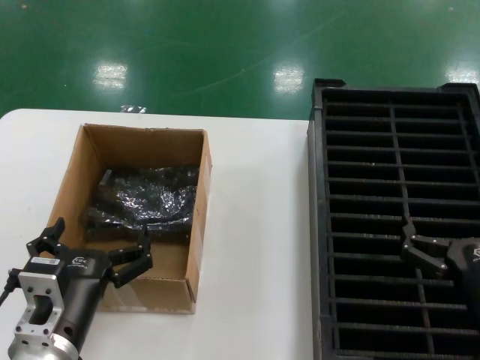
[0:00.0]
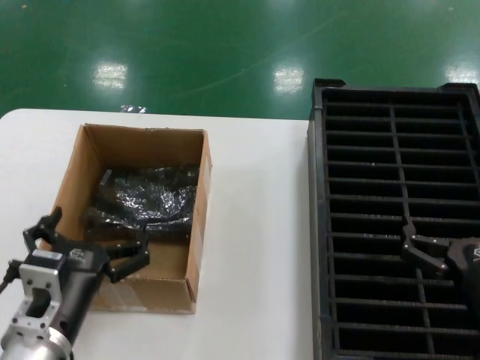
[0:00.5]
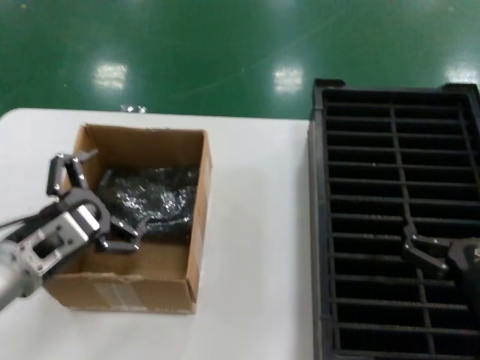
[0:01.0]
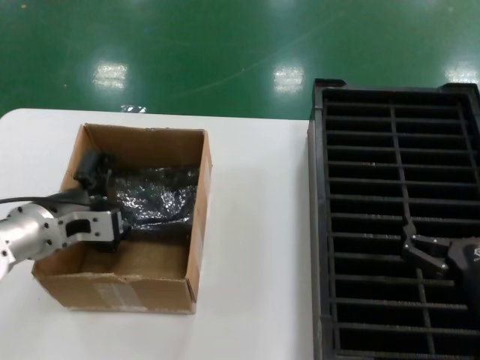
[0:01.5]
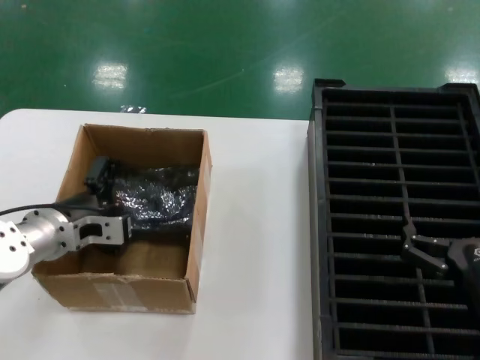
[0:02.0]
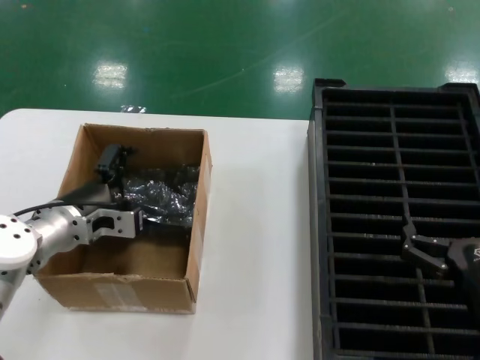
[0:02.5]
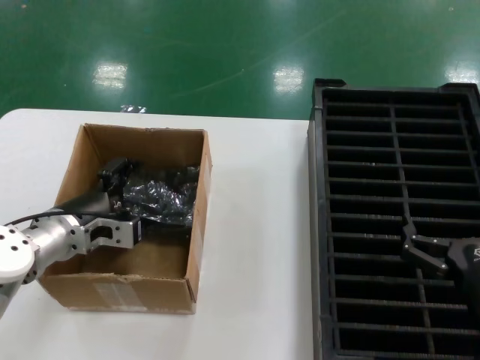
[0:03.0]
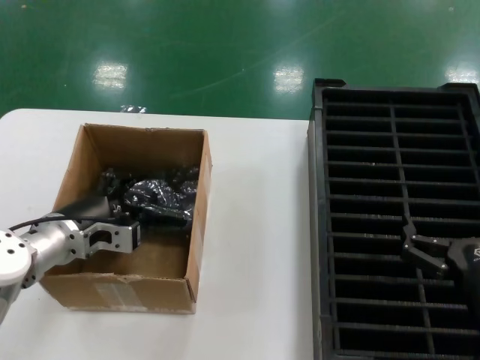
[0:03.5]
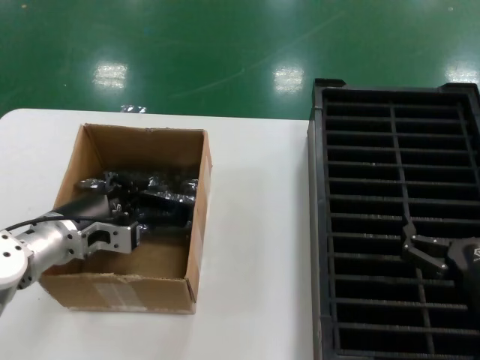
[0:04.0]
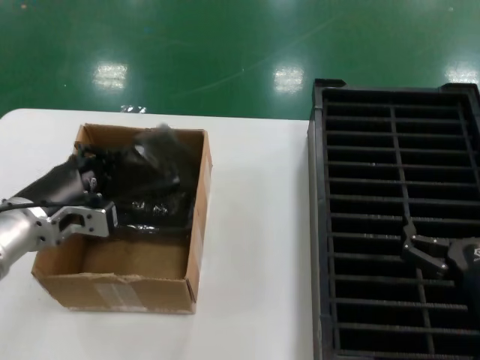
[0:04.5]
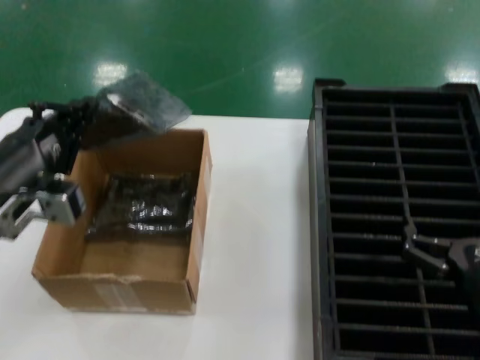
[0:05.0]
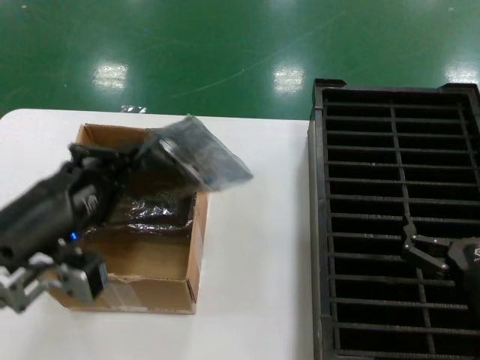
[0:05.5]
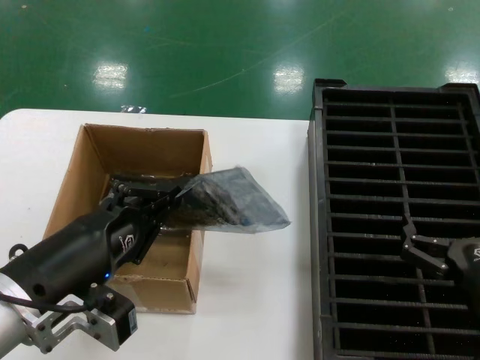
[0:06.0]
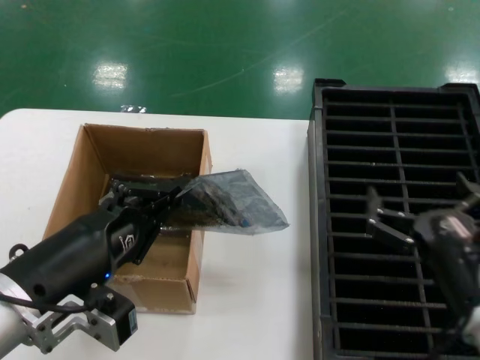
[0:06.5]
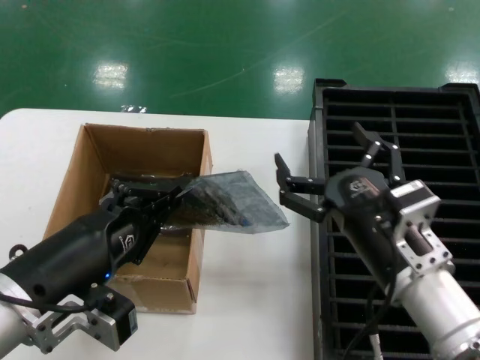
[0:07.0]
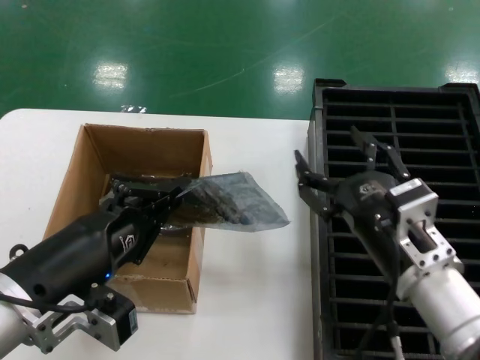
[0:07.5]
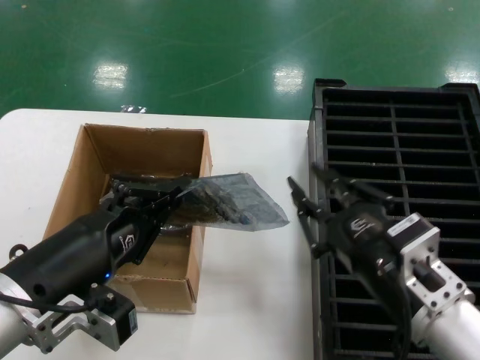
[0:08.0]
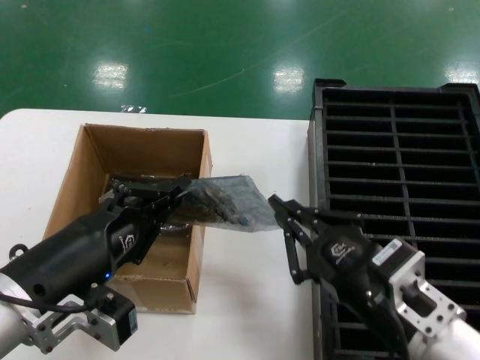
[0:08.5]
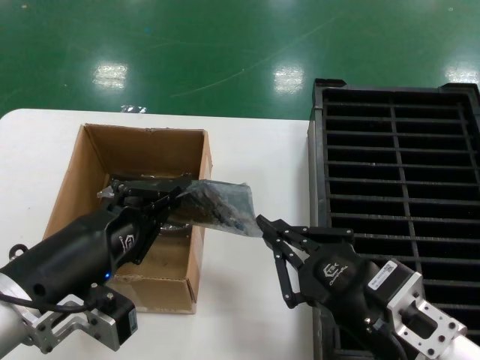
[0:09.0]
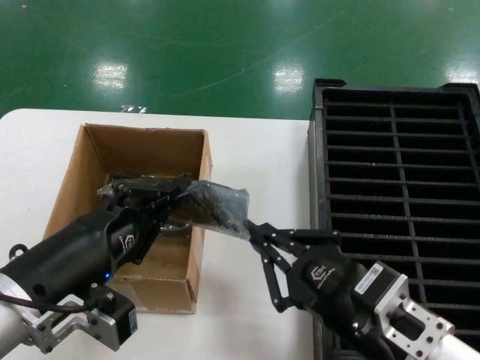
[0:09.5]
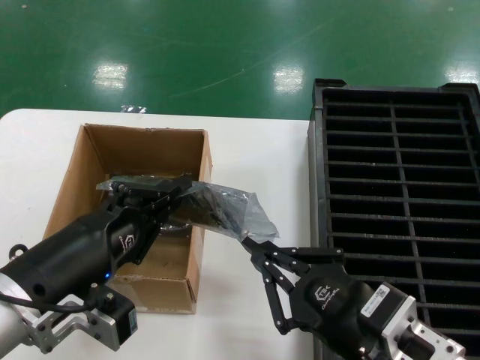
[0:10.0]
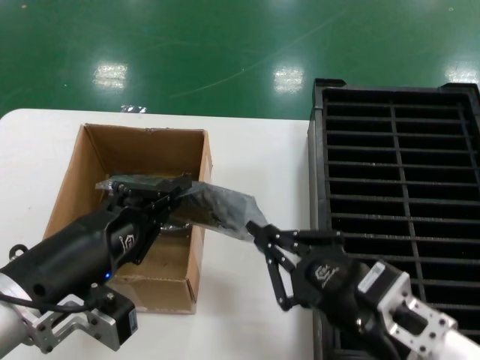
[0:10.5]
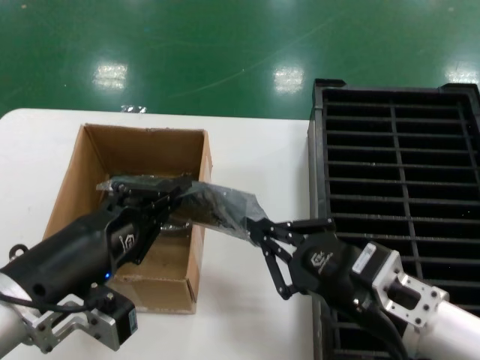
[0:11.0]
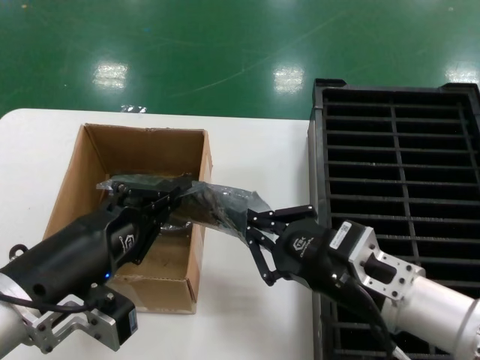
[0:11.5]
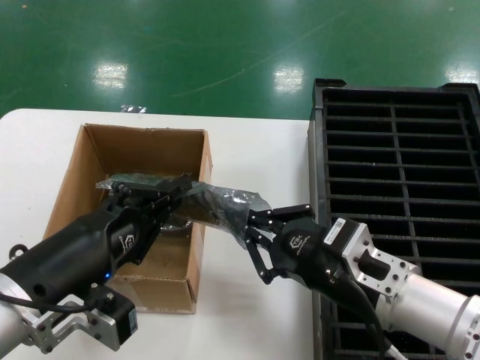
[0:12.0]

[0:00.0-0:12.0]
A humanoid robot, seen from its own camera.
Task of the whole recording: take out graphics card from box remove packaging put into black container.
Step, 0:00.0 to 0:04.0: Grasp the bag.
Step, 0:04.5 to 0:06.0: Lift the bag.
0:00.0 to 0:02.0: The left hand heads forward and to the left, covering roughly 20 cm.
0:02.0 to 0:04.0: The hands make only small movements.
0:04.0 to 0:06.0: The left hand heads backward, covering about 20 cm.
0:06.0 to 0:08.0: The right hand travels to the left and upward by approximately 10 cm.
0:08.0 to 0:10.0: The right hand heads backward, covering some 5 cm.
0:10.0 to 0:12.0: The right hand heads forward, covering some 10 cm.

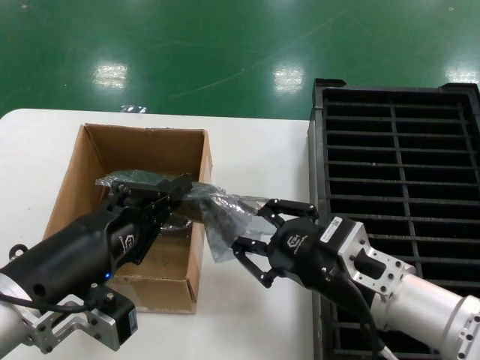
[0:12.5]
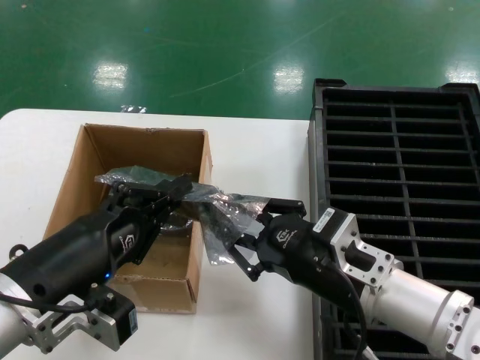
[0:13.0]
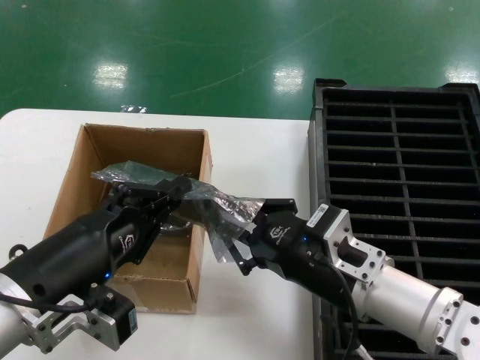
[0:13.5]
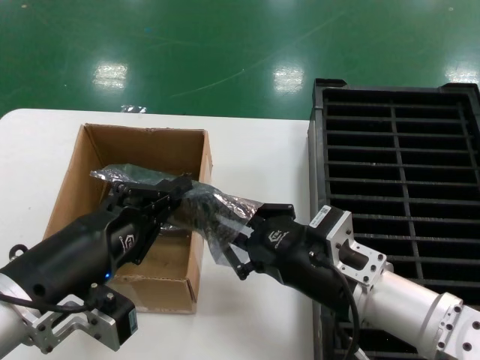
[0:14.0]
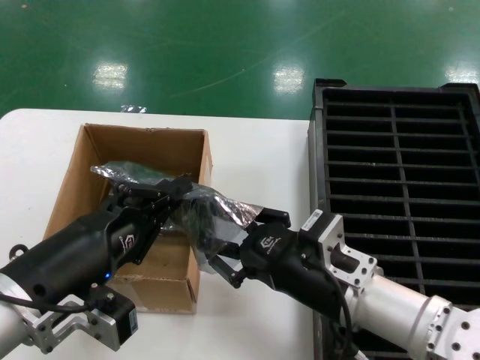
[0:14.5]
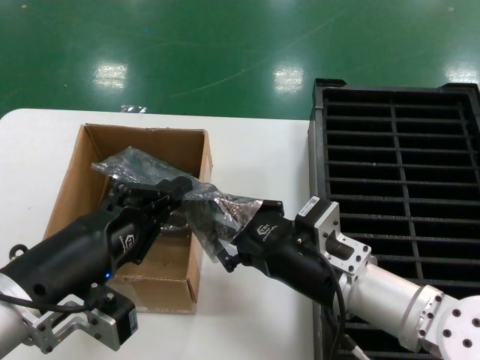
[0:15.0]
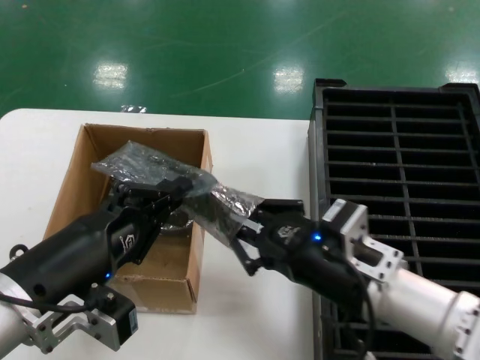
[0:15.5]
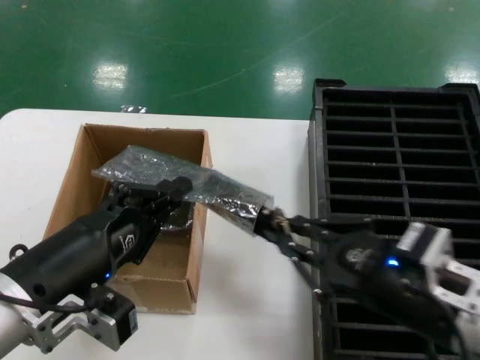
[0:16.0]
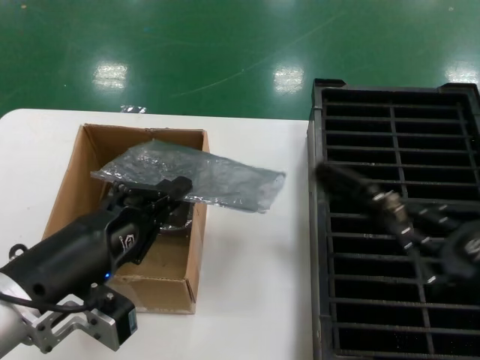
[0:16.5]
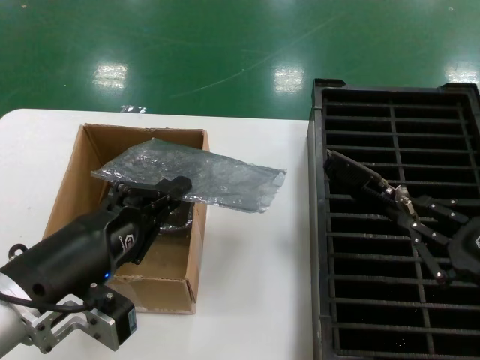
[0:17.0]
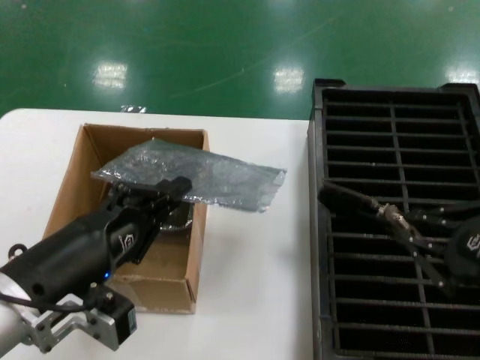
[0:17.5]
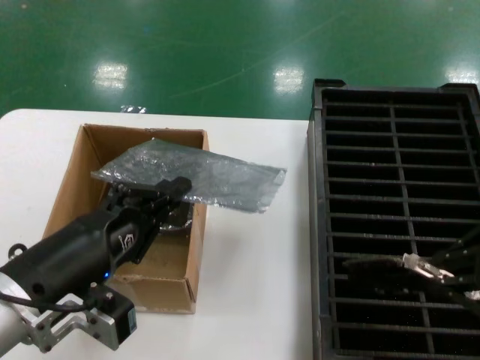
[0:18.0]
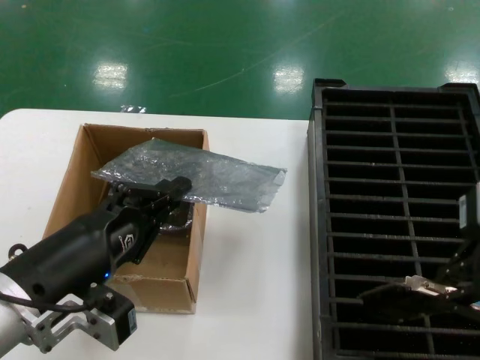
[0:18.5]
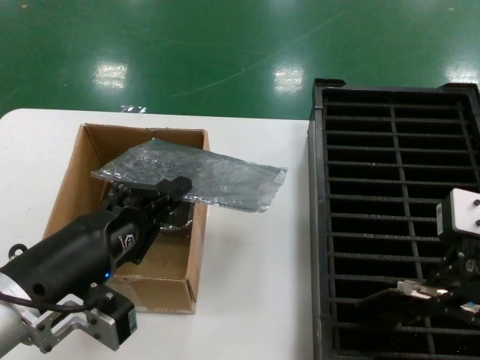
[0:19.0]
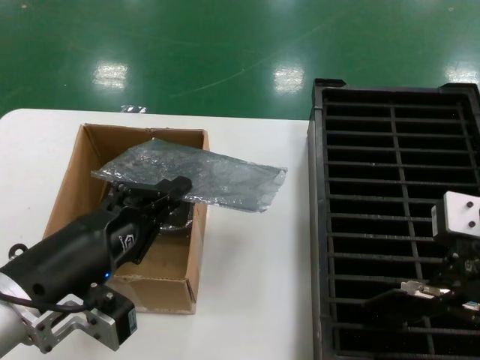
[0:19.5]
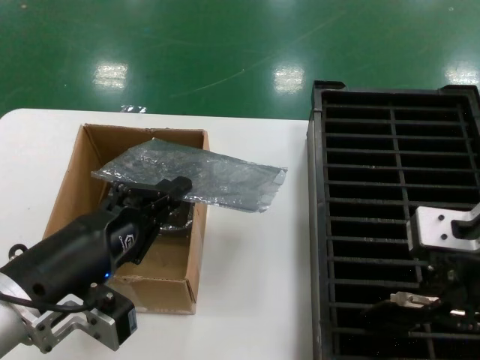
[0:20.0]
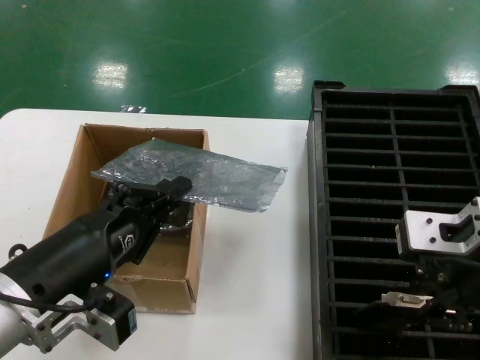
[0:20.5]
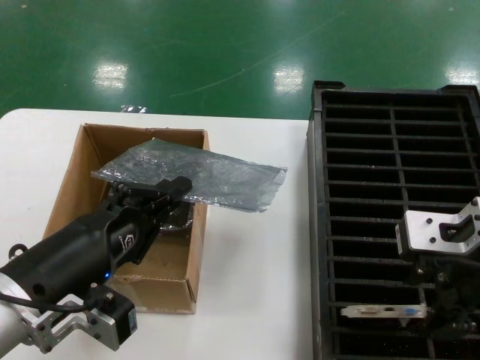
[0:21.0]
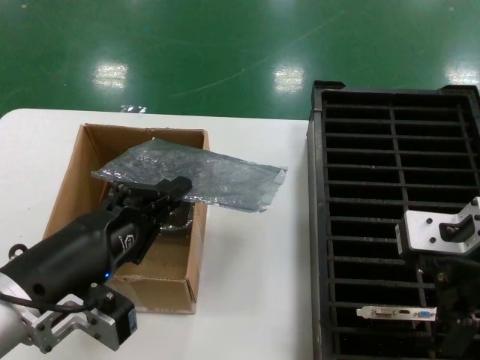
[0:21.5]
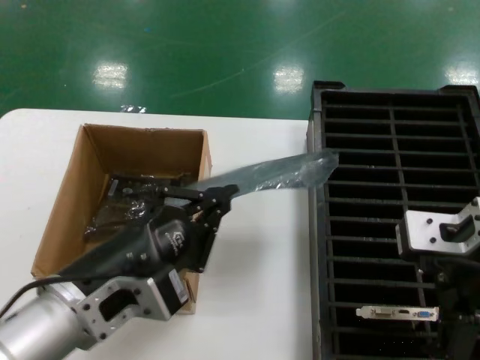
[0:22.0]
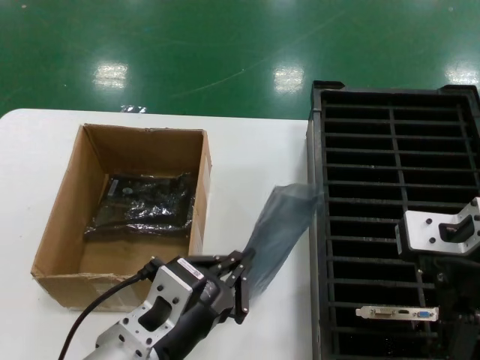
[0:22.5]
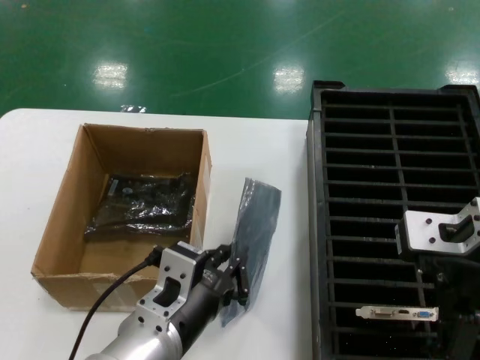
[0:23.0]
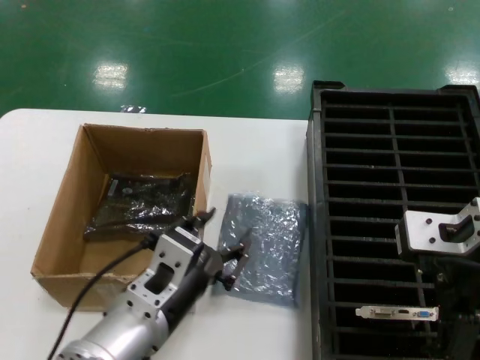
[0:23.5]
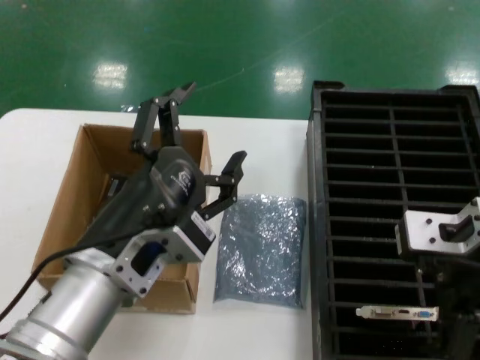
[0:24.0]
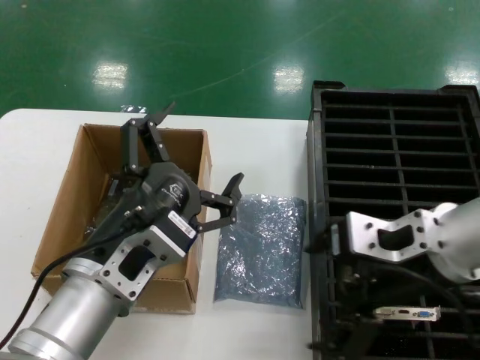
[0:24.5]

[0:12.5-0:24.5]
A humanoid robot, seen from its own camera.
Task of the whole recording: take out graphics card from box remove packaging put into black container.
Step, 0:12.5 to 0:16.0: Take out the hard disk of the bag.
Step, 0:16.5 to 0:20.5: Place the hard disk in the hard disk enclosure.
Step, 0:21.5 to 0:23.0: Place the down the bag.
0:12.5 to 0:14.5: The hands make only small movements.
0:14.5 to 0:16.5: The right hand goes about 20 cm to the right, backward and upward.
0:16.5 to 0:18.5: The right hand is displaced upward by some 15 cm.
0:18.5 to 0:20.5: The right hand changes place by some 5 cm.
0:20.5 to 0:22.5: The left hand is displaced to the right by some 10 cm.

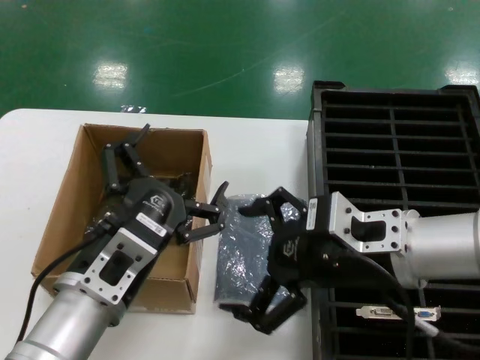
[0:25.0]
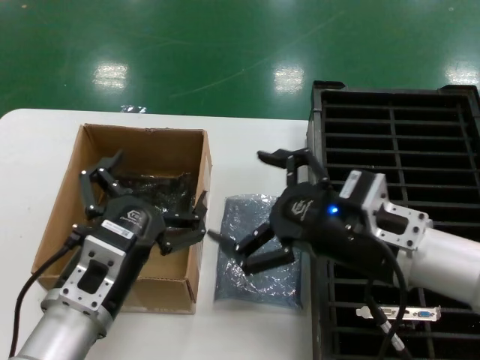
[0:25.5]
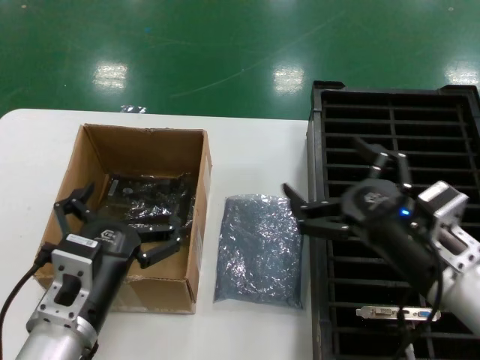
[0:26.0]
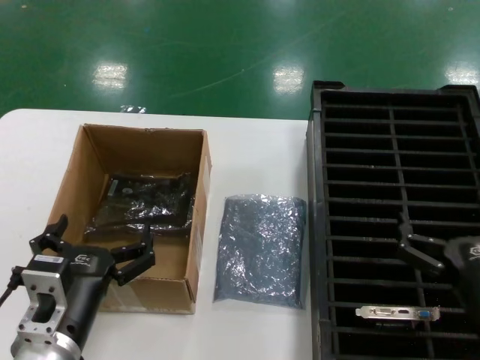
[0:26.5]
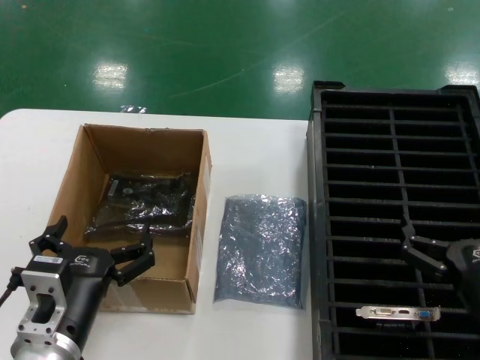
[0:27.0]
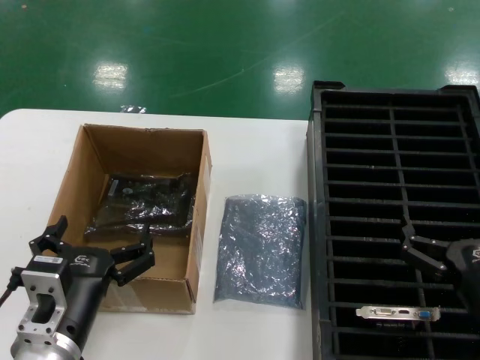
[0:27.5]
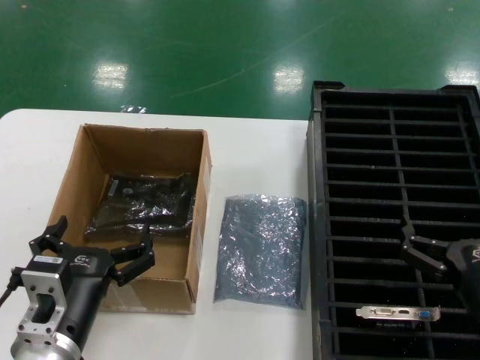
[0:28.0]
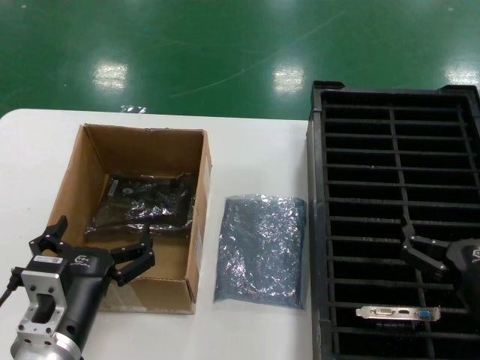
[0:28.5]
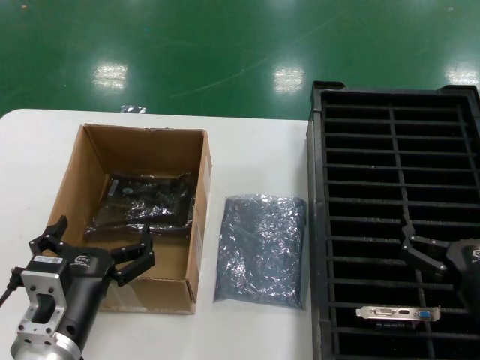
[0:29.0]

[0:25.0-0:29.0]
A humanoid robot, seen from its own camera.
Task of the whole recording: take out graphics card from box remove packaging put into black container.
0:25.0 to 0:27.0: The left hand goes about 10 cm downward and to the left. Meanwhile the right hand shifts roughly 20 cm downward and to the right.
0:27.0 to 0:29.0: Both hands stay put.
